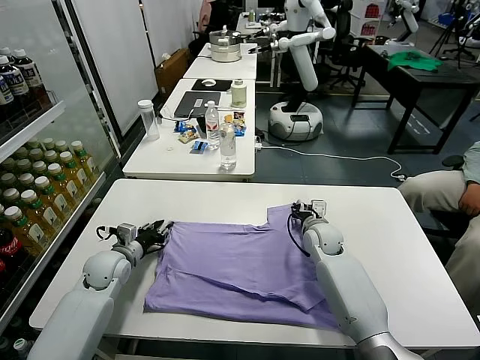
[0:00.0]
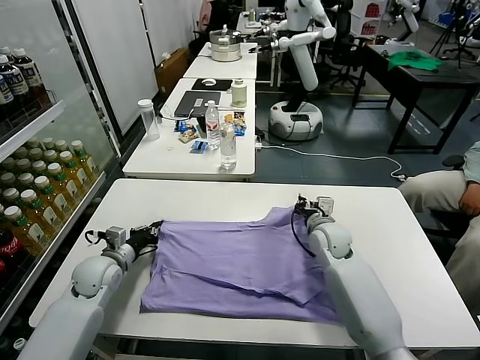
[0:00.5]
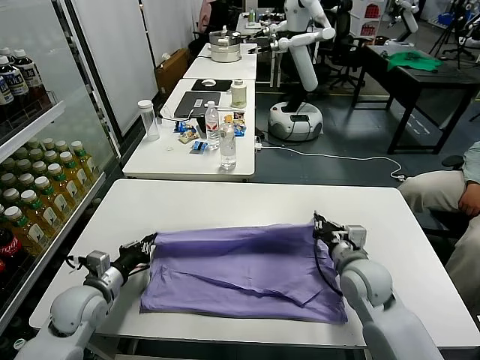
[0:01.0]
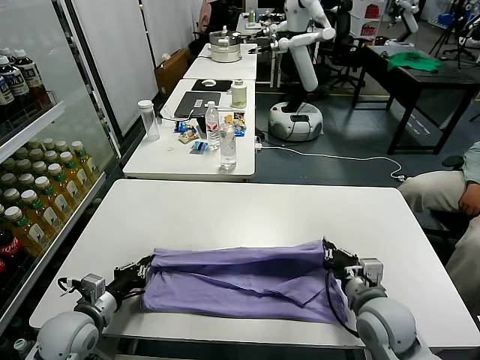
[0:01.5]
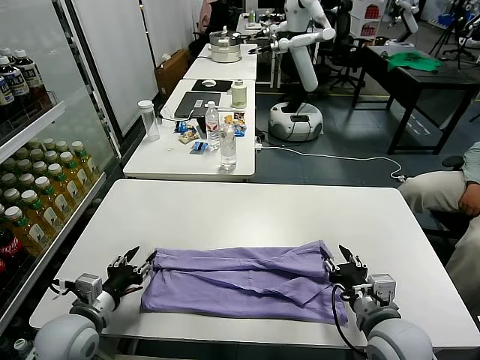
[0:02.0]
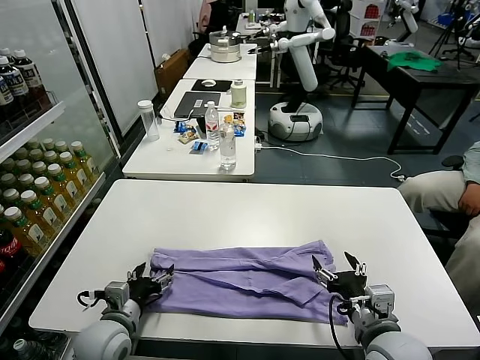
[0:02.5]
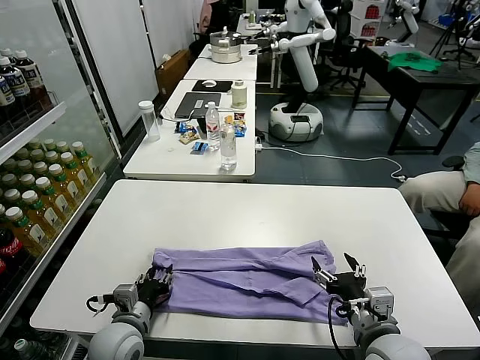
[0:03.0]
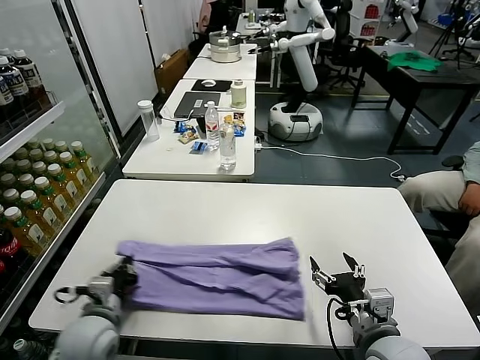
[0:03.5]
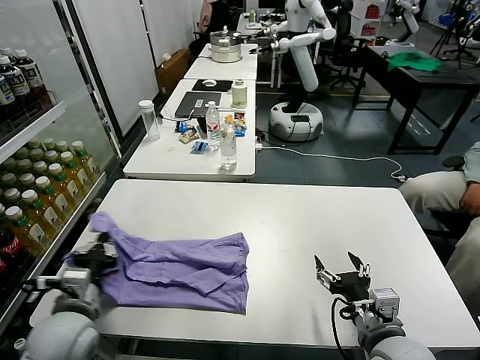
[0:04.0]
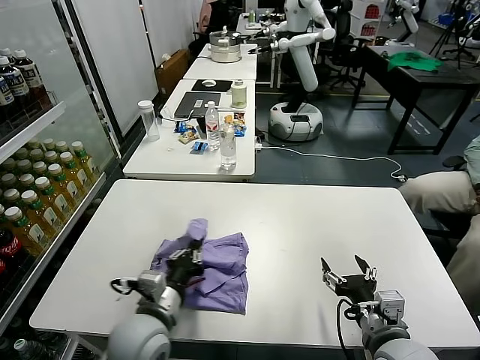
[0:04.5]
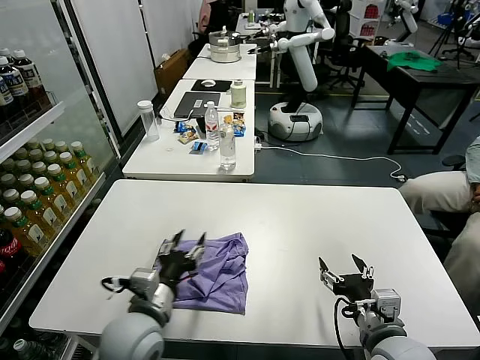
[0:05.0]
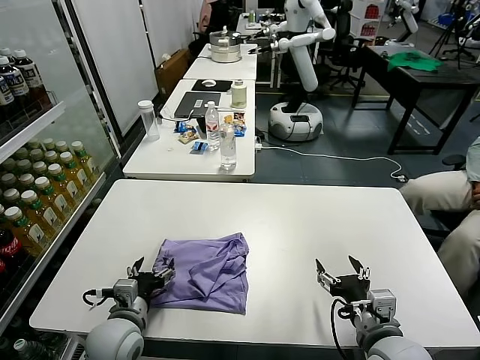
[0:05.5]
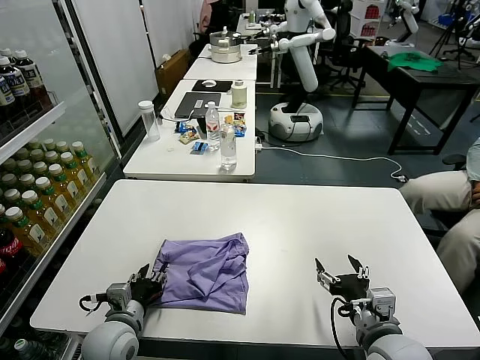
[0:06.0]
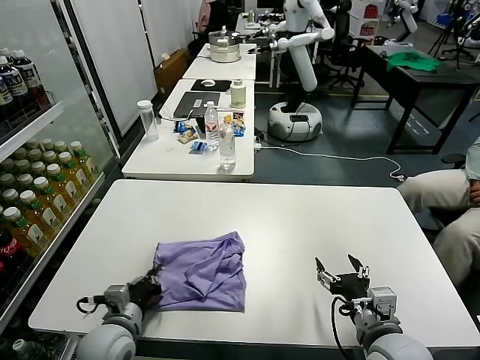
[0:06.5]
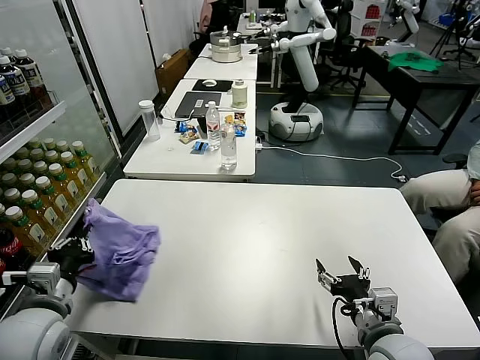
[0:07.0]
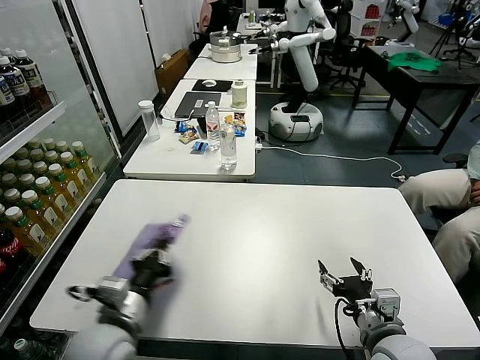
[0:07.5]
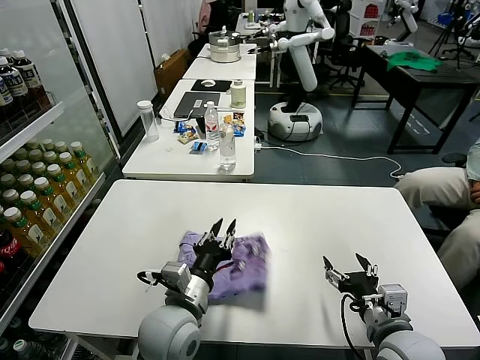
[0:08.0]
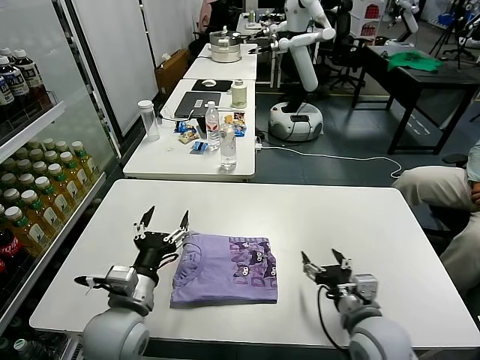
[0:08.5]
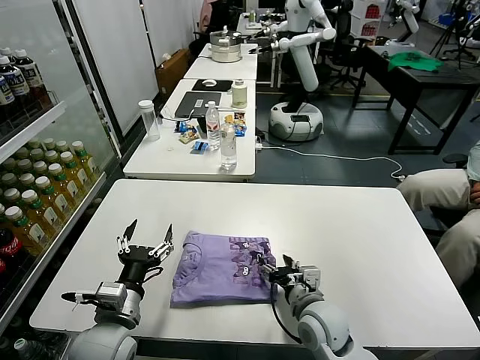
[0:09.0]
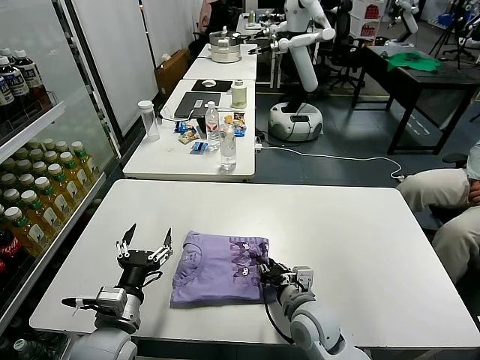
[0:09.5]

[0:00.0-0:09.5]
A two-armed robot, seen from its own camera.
Task of the whole recording: fold and organize the clothes.
Step, 0:00.5 to 0:01.5: use both grippers to drag the upper edge of the fabric backward and fold it over the lower edge.
Step, 0:02.0 to 0:03.0: use the left gripper to clamp the left edge of the fabric.
Step, 0:03.5 to 0:05.0: use the left gripper to drag the left edge of the fabric to the left and folds it over the right edge.
Step, 0:05.5 to 0:08.0: Flip the folded clothes over with left gripper.
0:00.0 to 0:02.0: The left gripper heads backward, covering approximately 15 cm, and closes, then opens again. The right gripper heads backward, covering approximately 30 cm, and opens its fingers.
0:02.0 to 0:04.0: The left gripper closes its fingers.
0:04.0 to 0:05.5: The left gripper heads downward and to the right, covering some 10 cm, and opens up.
0:05.5 to 0:07.5: The left gripper travels upward by approximately 10 cm, and closes.
0:07.5 to 0:09.5: The left gripper goes to the right and returns, some 10 cm each way, and opens up, while the right gripper goes roughly 15 cm to the left, forward and downward, and closes up.

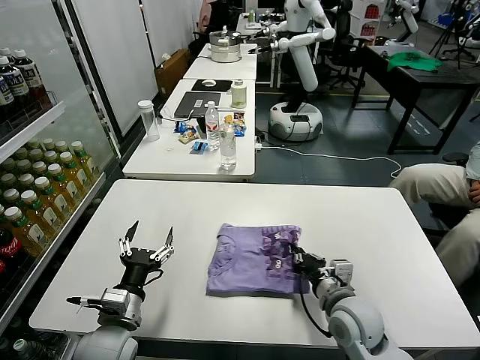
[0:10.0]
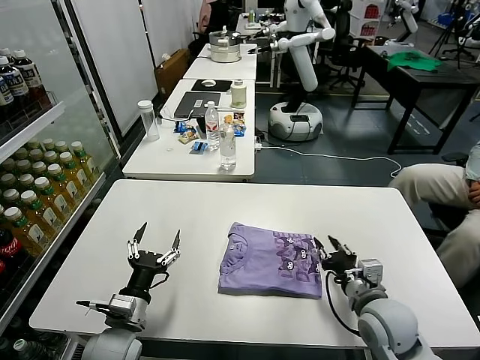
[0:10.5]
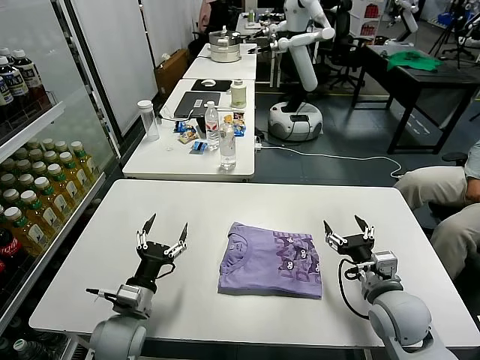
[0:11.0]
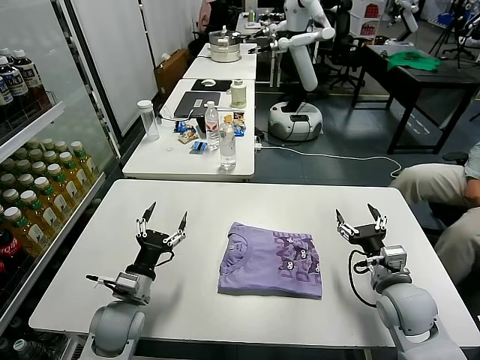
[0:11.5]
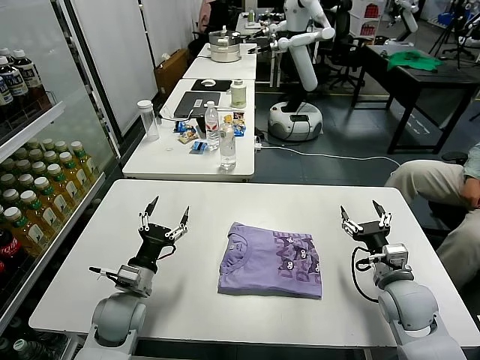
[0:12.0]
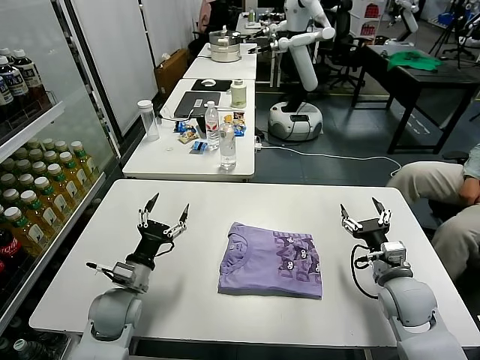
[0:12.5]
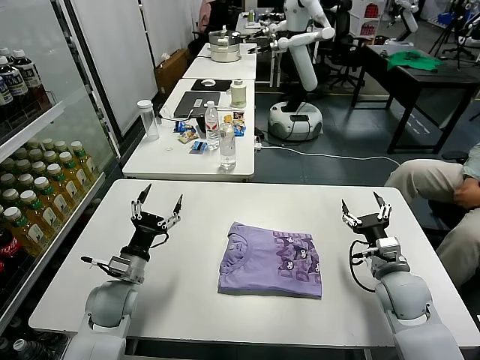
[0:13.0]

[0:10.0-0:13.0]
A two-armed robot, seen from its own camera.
Task of the whole recording: fold and organize the clothes.
0:10.0 to 0:11.5: The right gripper moves to the right, some 10 cm, and opens; the left gripper goes roughly 5 cm forward.
0:11.5 to 0:13.0: There are only small adjustments of the grippers.
